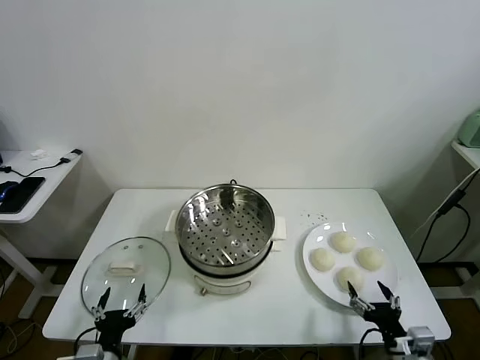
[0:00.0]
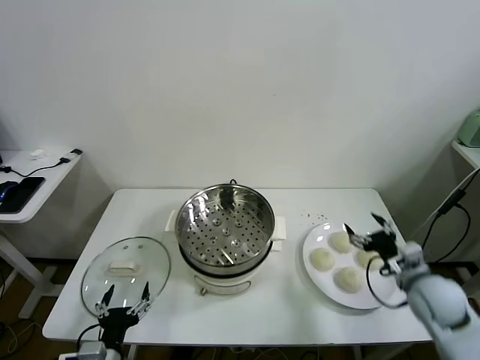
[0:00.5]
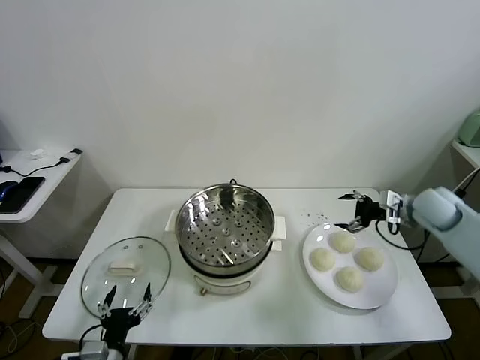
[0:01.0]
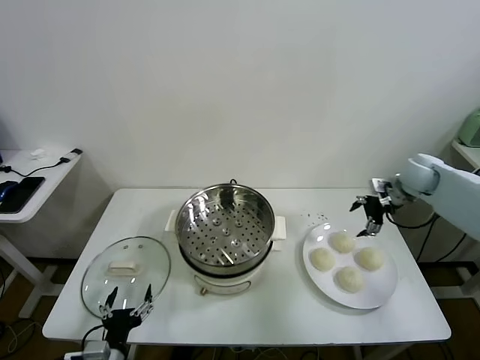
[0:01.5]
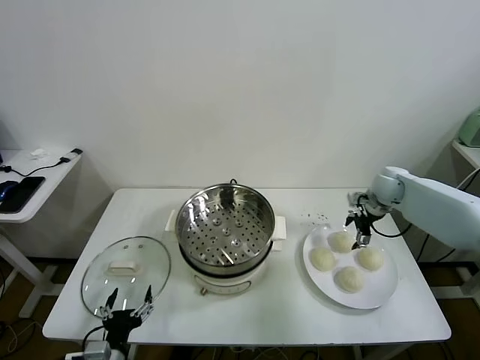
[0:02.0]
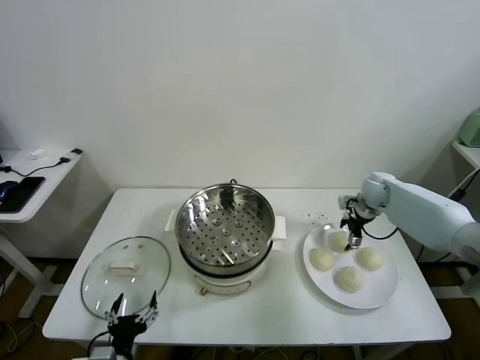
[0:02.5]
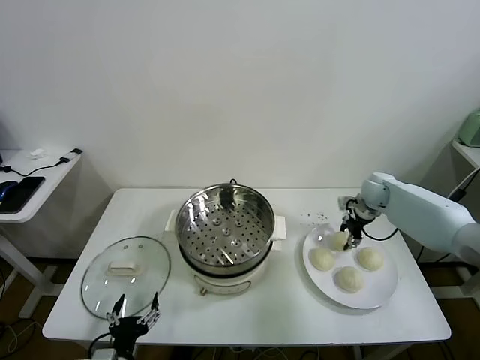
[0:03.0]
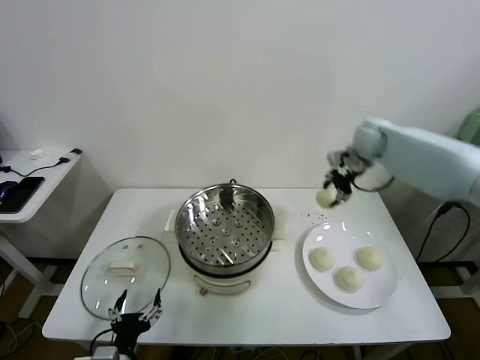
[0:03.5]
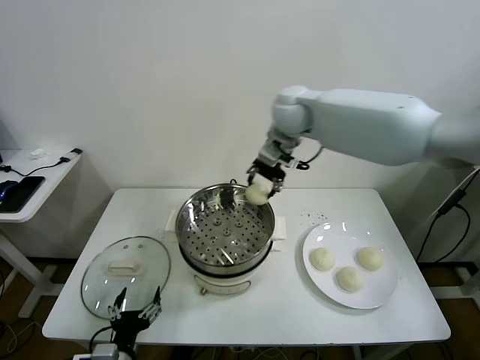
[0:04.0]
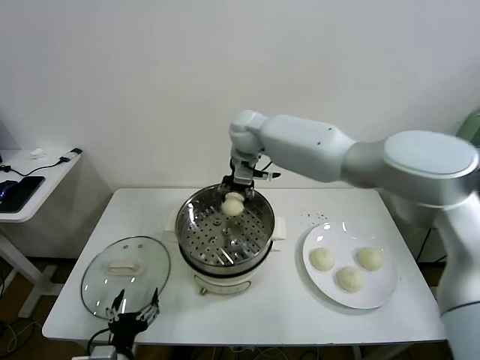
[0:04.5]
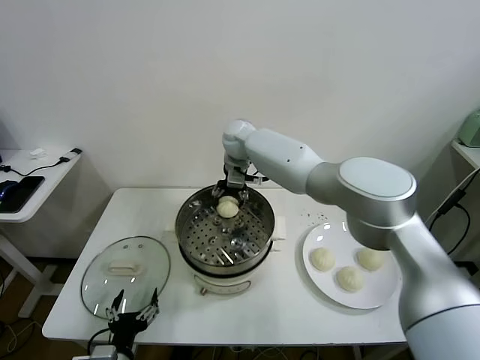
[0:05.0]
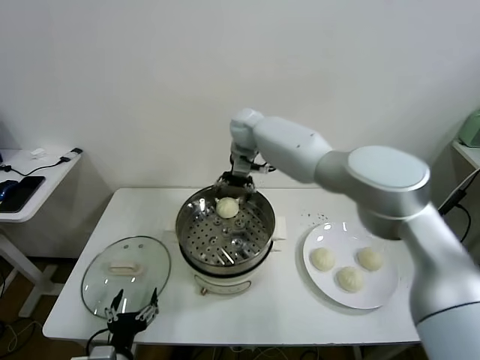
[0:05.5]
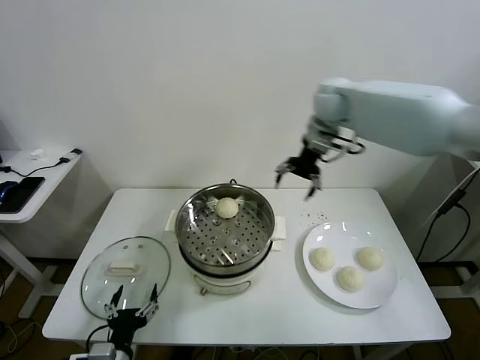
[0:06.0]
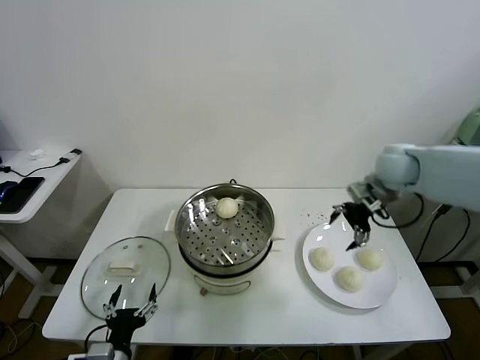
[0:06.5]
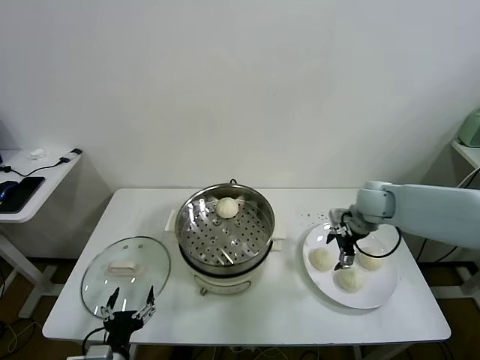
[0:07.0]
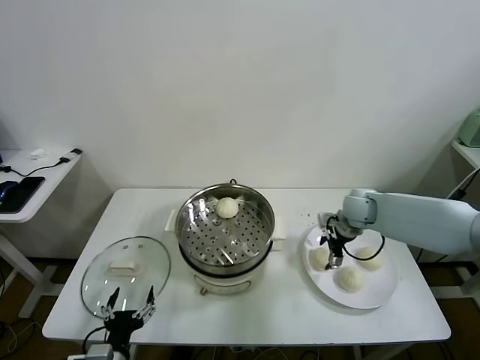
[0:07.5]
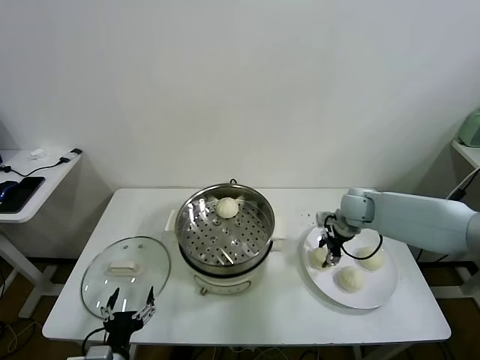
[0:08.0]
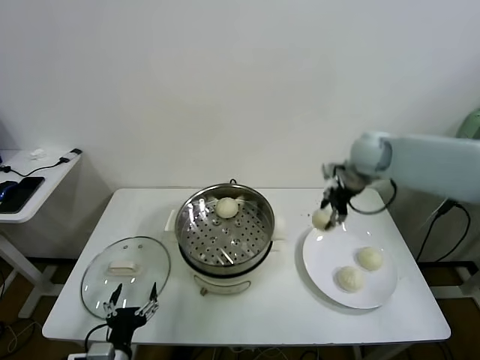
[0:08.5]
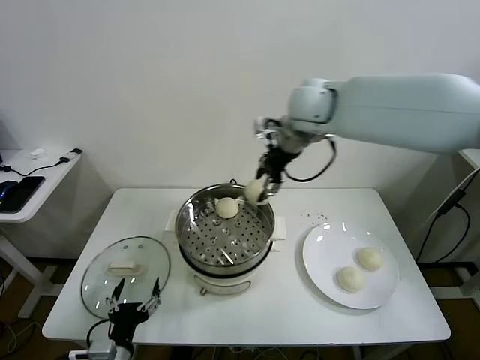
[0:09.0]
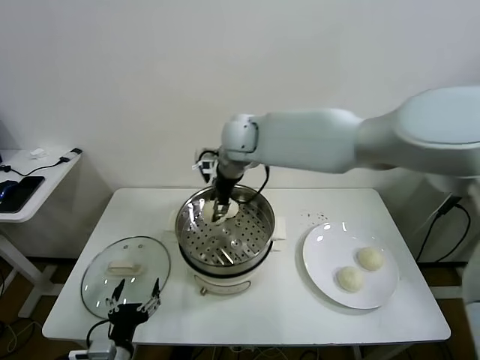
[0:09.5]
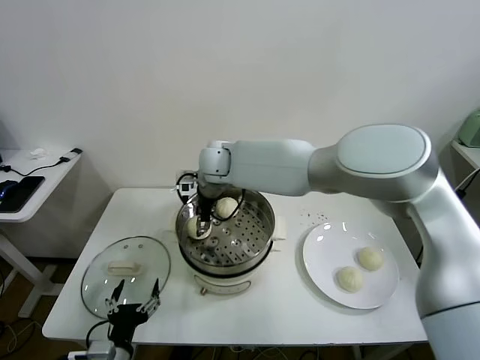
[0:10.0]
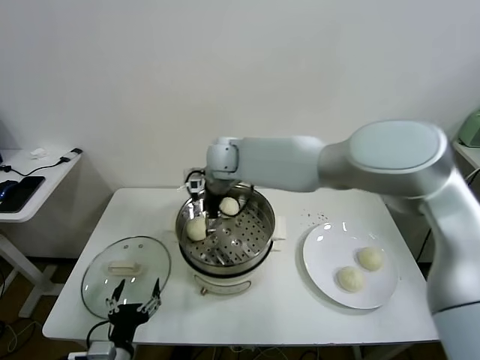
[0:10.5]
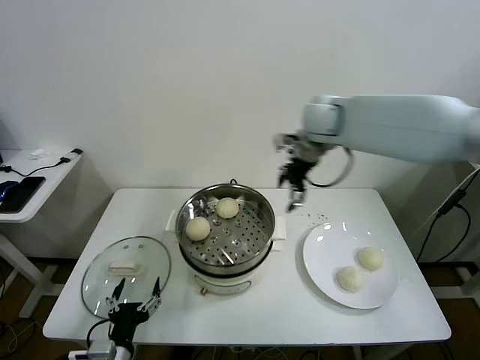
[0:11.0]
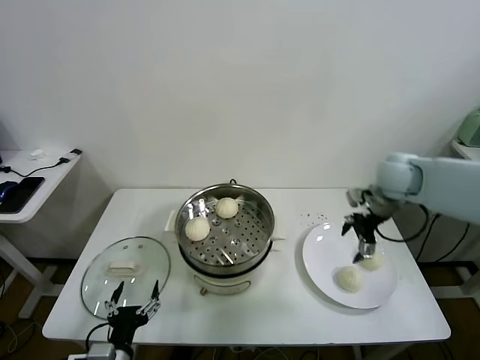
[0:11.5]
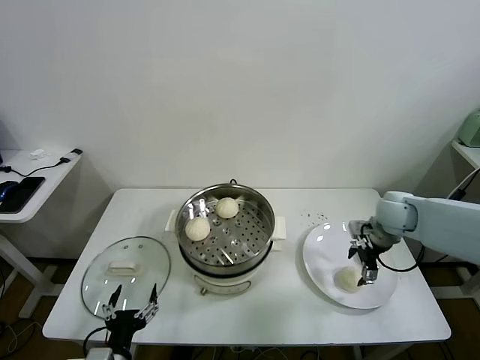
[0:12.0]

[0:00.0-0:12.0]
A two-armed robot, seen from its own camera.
Task of the whole recording: take steamed baozi put them in steamer.
Step, 0:00.0 to 0:02.5: Grasp the baozi in the plate with right gripper.
Step, 0:03.0 to 0:05.0: Place the baozi on the steamer with right gripper.
Step, 0:05.5 to 0:07.5: Grasp the baozi in the plate with right gripper.
Step, 0:08.0 to 0:10.0: Place the baozi on the steamer with right gripper.
0:02.0 to 0:04.0: The right gripper travels to the left and upward by roughly 40 cm, and closes up.
0:04.0 to 0:06.0: The right gripper goes roughly 20 cm to the right, and opens up.
0:06.0 to 0:08.0: The right gripper travels downward by roughly 20 cm, and closes.
0:08.0 to 0:10.0: The right gripper moves to the left, about 35 cm.
0:10.0 to 0:12.0: The right gripper heads to the right, covering approximately 40 cm, and opens.

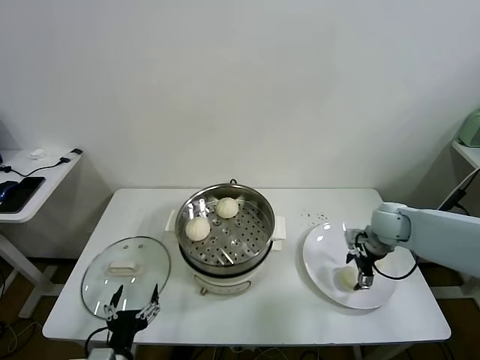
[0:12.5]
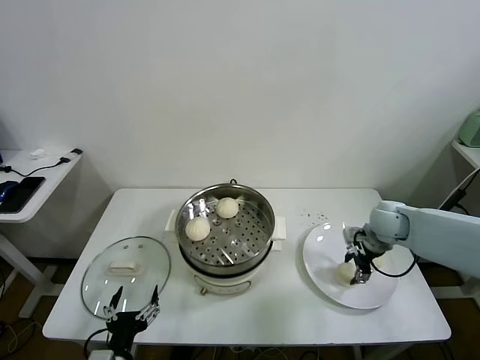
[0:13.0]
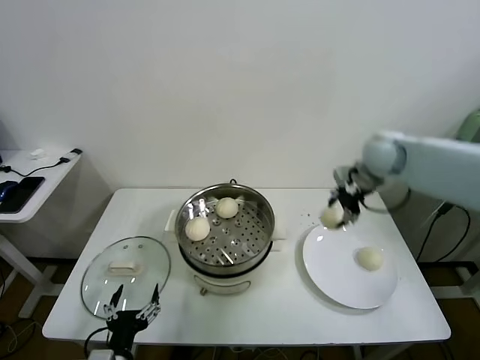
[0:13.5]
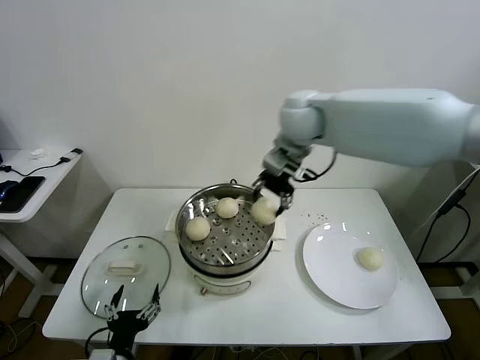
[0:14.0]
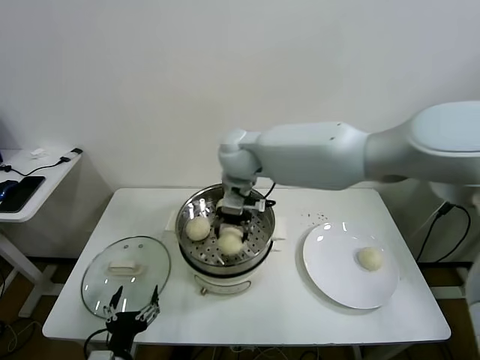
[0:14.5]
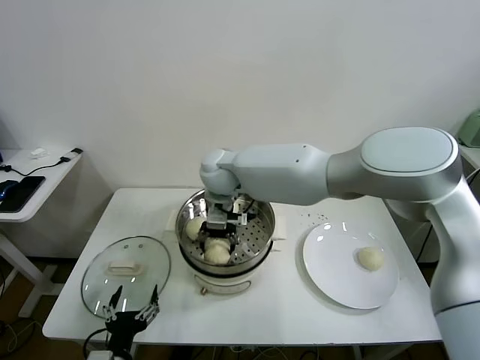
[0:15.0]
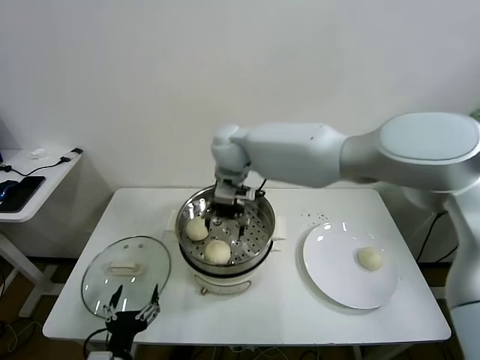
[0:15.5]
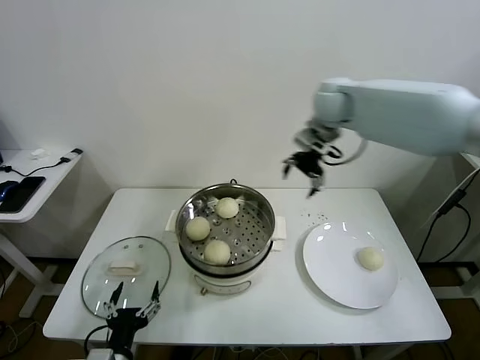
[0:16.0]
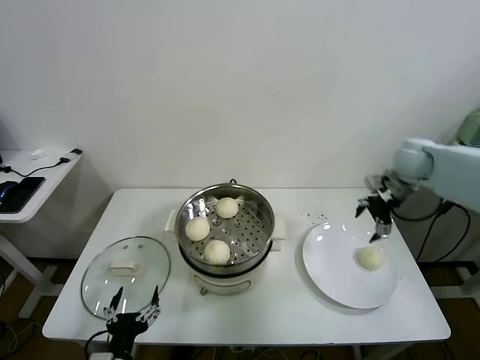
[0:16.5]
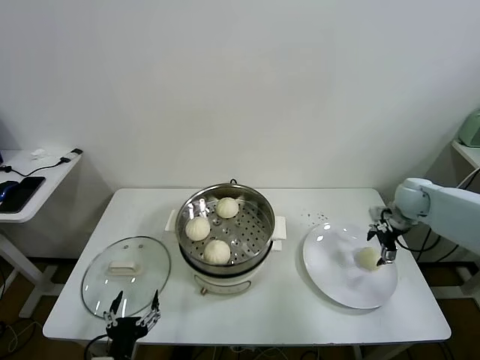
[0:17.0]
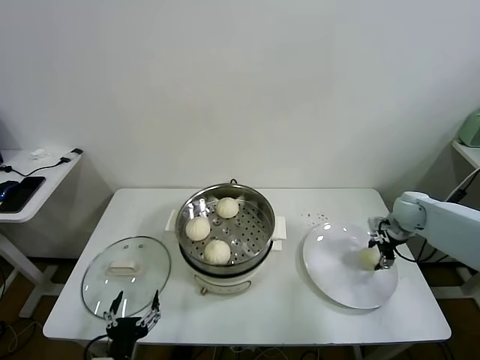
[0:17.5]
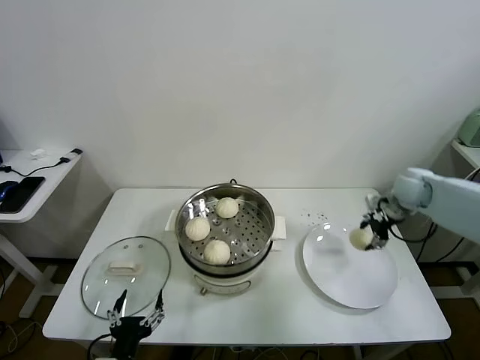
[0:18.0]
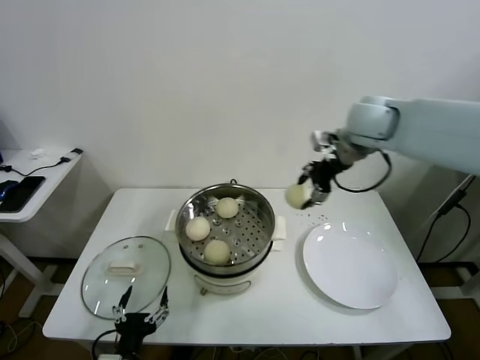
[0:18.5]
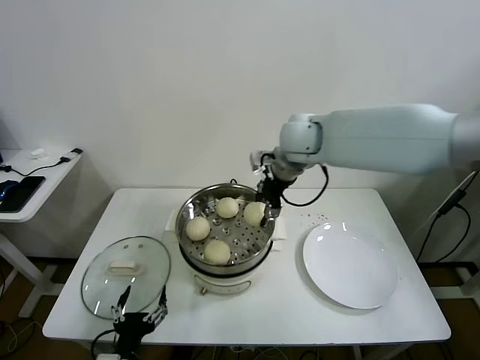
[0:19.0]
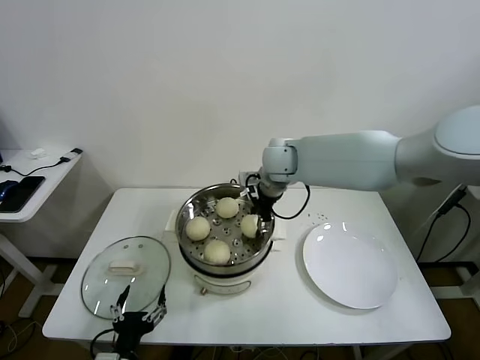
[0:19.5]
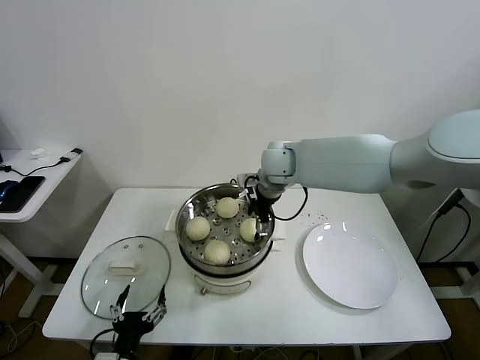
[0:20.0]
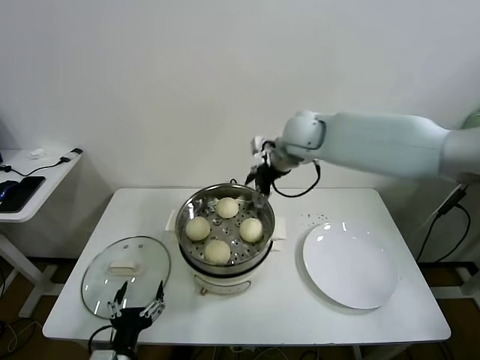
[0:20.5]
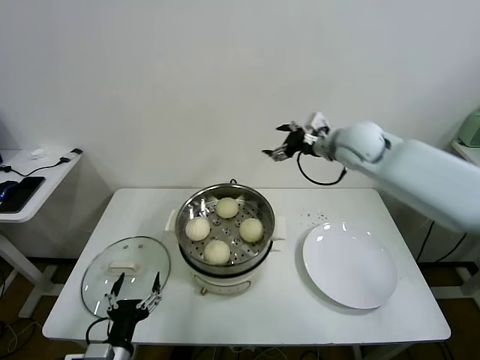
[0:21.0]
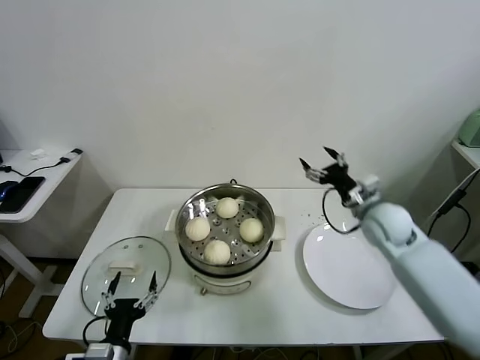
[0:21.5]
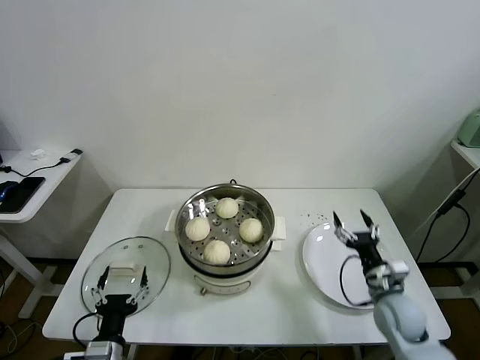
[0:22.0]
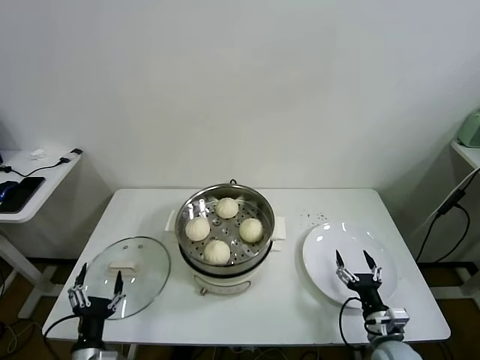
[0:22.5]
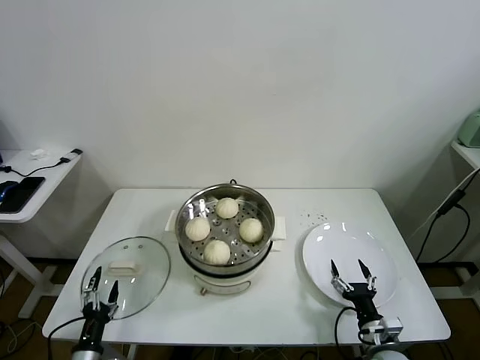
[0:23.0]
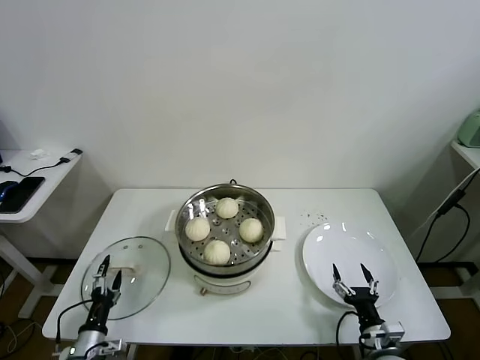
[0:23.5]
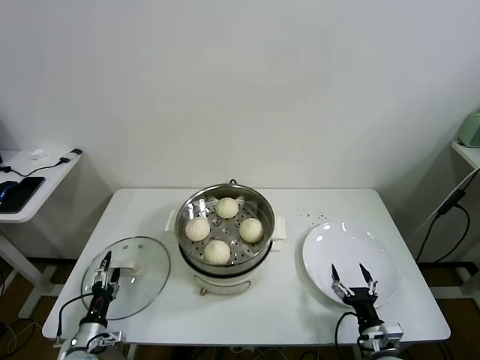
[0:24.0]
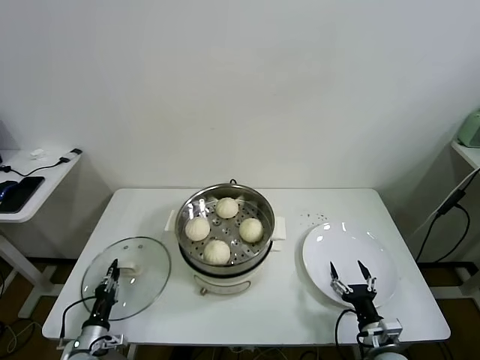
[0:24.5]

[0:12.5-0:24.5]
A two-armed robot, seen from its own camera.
Task of the whole recording: take steamed baozi put them in steamer.
Step, 0:13.0 to 0:15.0: Place the baozi on the steamer with right gripper.
Step, 0:15.5 to 0:17.0: Grasp the baozi in the plate with right gripper.
Step, 0:17.5 to 0:20.0: Place the baozi on the steamer with right gripper.
0:12.5 to 0:14.5: The right gripper heads to the left and upward, covering roughly 40 cm, and closes its fingers.
0:14.5 to 0:16.5: The right gripper travels to the right by some 40 cm, and opens up.
0:16.5 to 0:18.5: The right gripper is displaced to the left and upward by approximately 20 cm, and closes up.
0:18.5 to 0:20.5: The right gripper goes some 10 cm to the left, and opens up.
0:20.5 to 0:22.5: The left gripper shifts some 10 cm to the left and downward. Meanwhile the right gripper is displaced downward, backward and to the right by roughly 50 cm.
0:22.5 to 0:24.5: The left gripper moves downward, to the left and forward, approximately 15 cm, and closes its fingers.

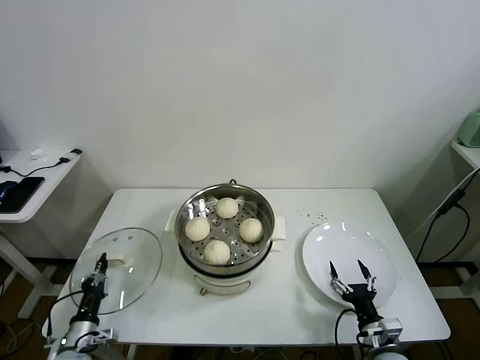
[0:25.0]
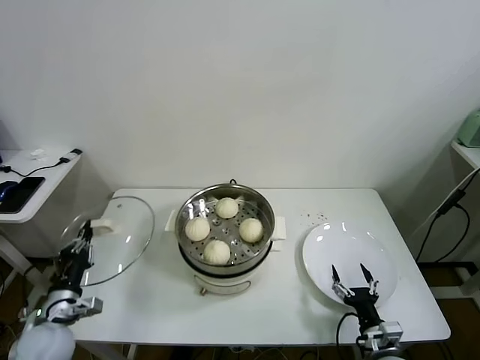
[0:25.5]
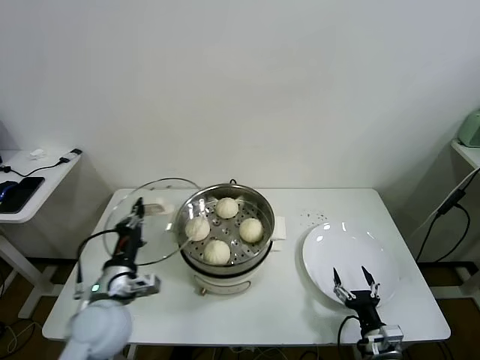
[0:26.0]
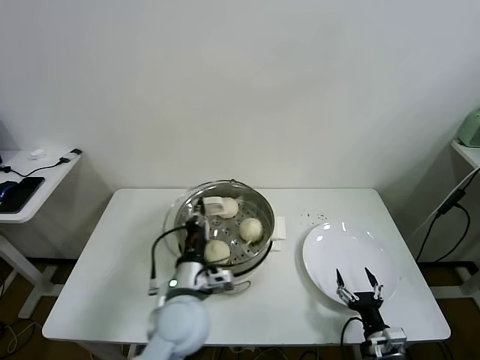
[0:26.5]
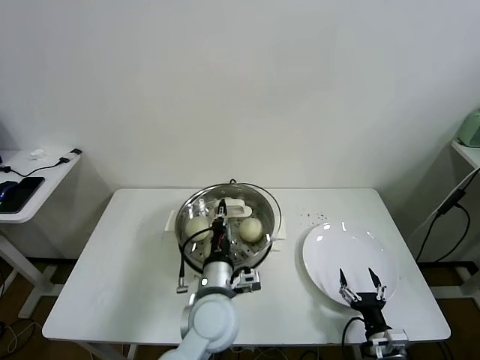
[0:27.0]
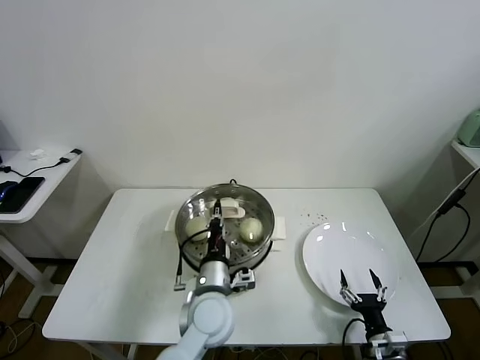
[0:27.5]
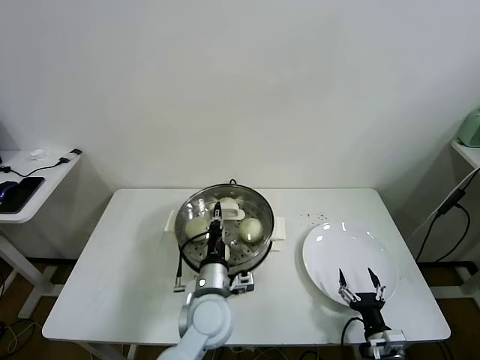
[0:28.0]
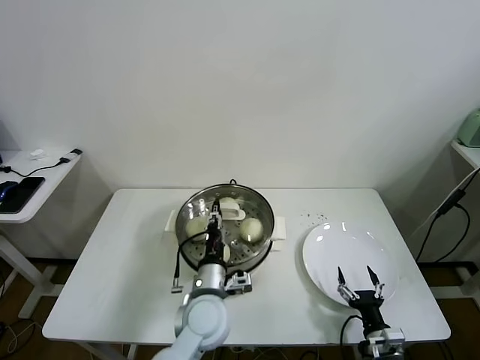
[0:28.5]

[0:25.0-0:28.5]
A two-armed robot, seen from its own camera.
Task of the whole recording: take steamed baozi put them in steamer.
0:25.0 to 0:27.0: The left gripper moves to the right and upward, roughly 40 cm.
0:27.0 to 0:28.5: The left gripper opens.
